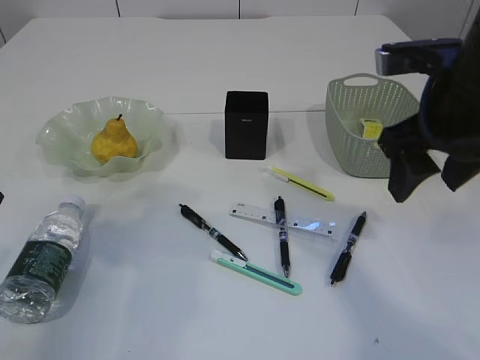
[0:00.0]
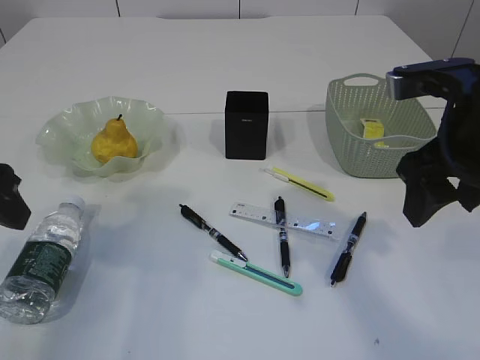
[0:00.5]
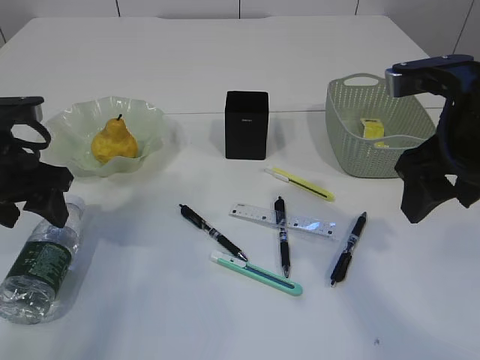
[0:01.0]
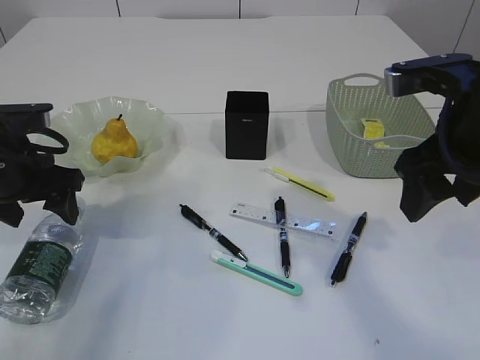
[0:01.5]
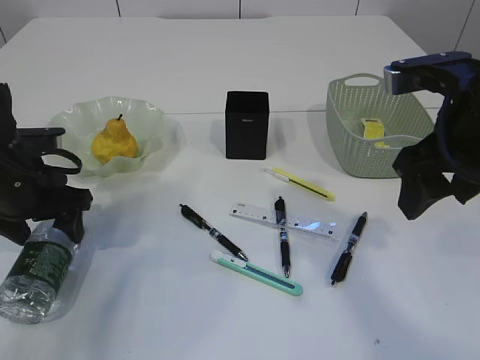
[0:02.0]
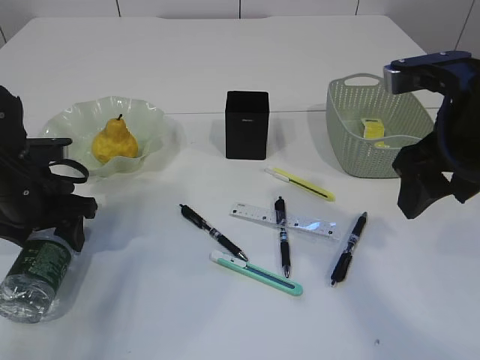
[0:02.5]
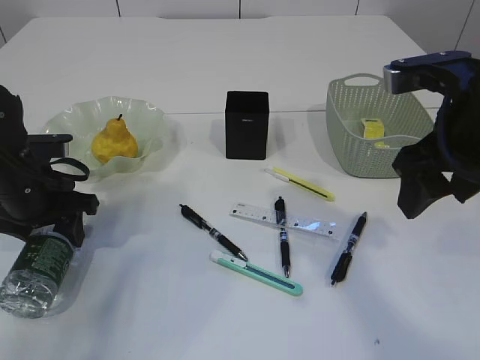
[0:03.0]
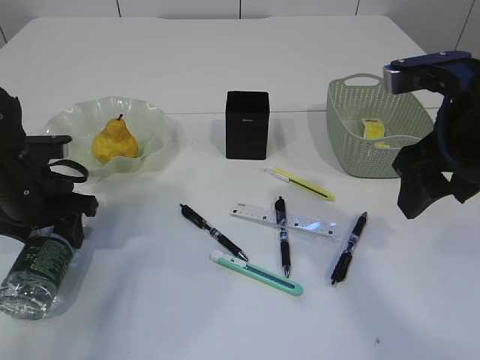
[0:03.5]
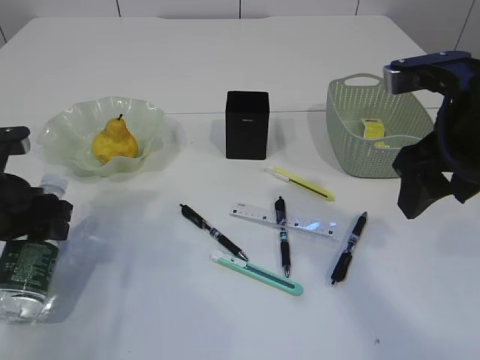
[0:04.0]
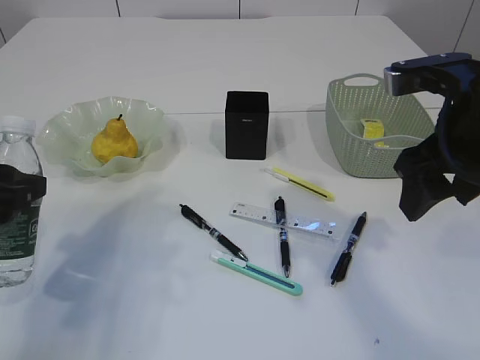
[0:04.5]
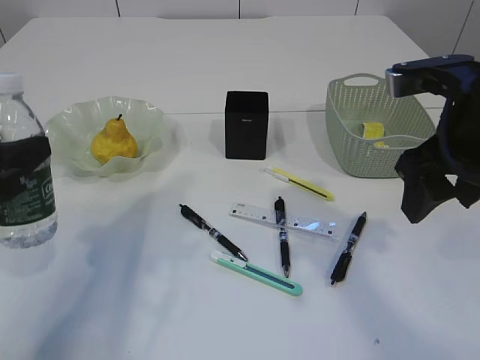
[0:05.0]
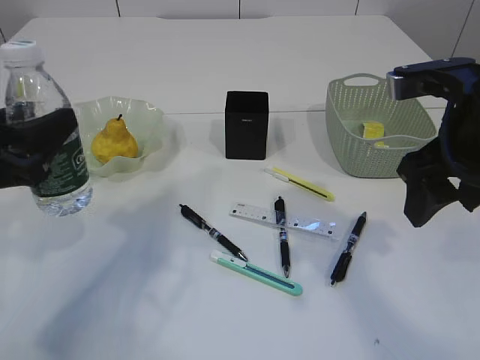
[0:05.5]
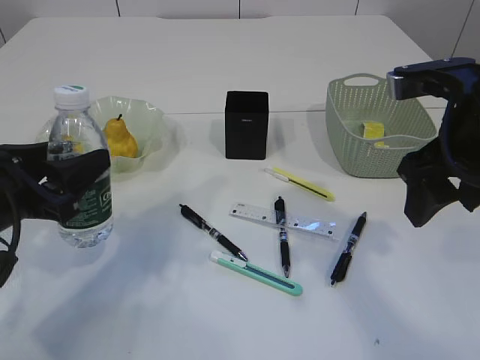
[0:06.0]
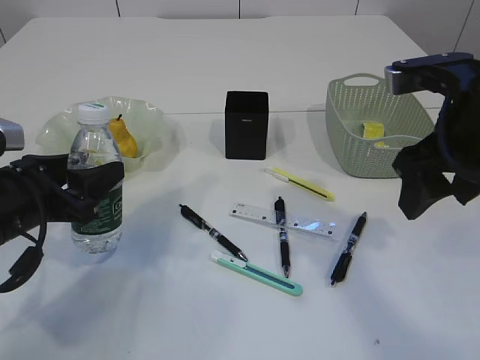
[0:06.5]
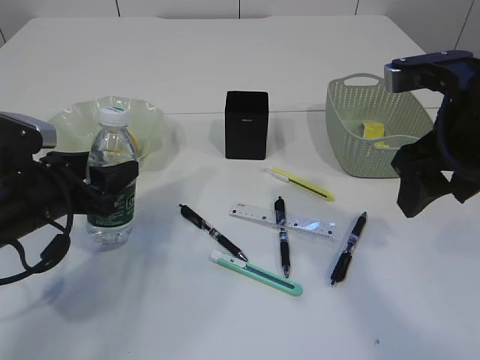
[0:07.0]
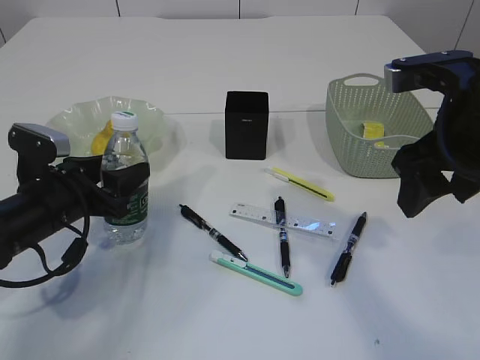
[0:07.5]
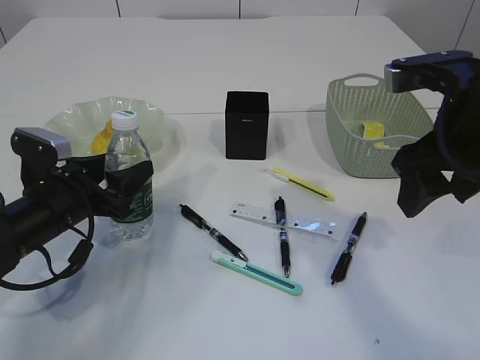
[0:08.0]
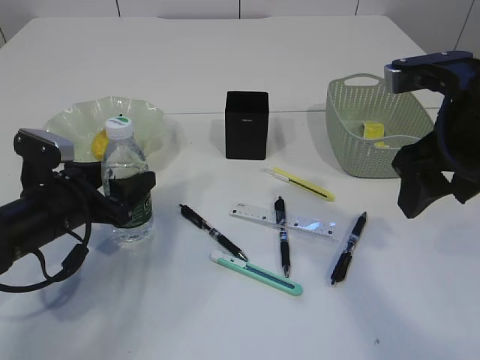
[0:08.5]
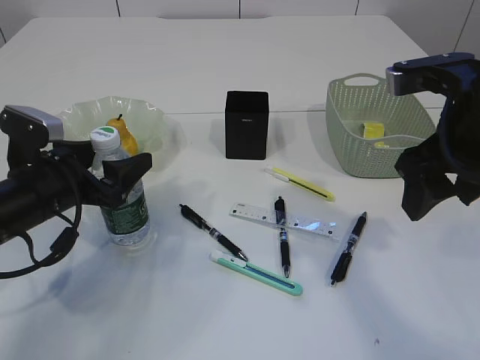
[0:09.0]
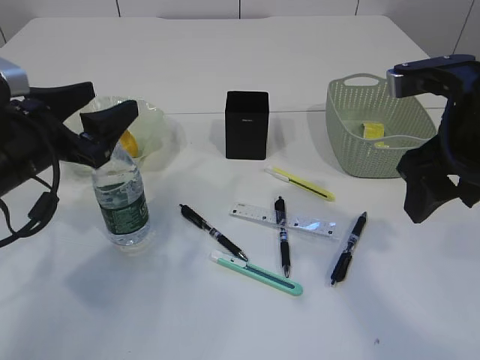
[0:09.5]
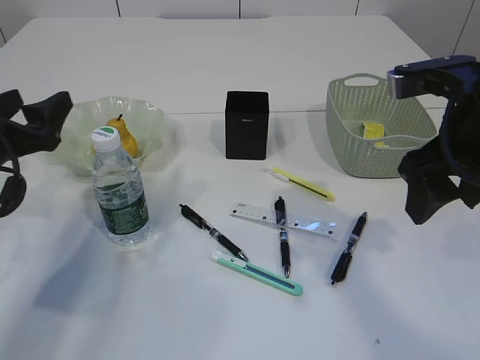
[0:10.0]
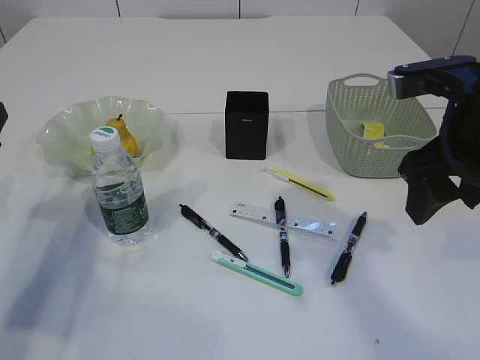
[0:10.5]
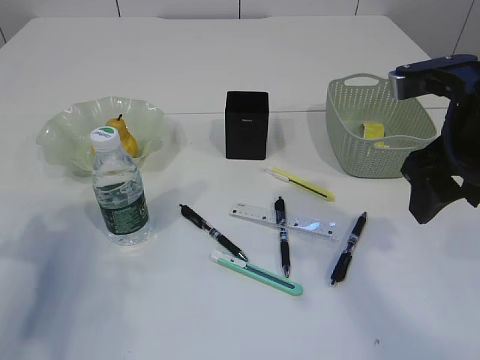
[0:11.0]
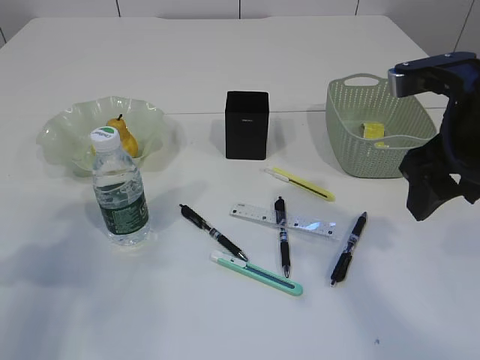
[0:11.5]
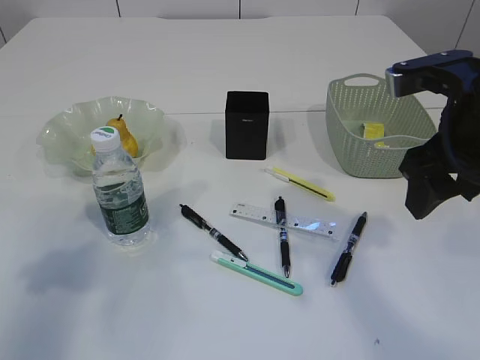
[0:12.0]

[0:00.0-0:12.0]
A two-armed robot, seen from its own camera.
Step, 0:00.5 to 0:04.0: Pick up the bottle with the left arm.
Step, 0:04.5 to 0:10.0: Place the bottle.
0:00.0 to 0:02.0: The left gripper goes about 15 cm downward and forward.
0:02.0 to 0:04.0: The left gripper is displaced backward by some 5 cm, and closes up.
0:06.0 to 0:08.0: The left gripper travels downward and forward by some 10 cm.
0:08.0 to 0:10.0: The left gripper heads upward and to the left, covering roughly 10 cm, and opens its fingers.
0:10.0 to 0:12.0: The left gripper heads upward and backward, covering roughly 15 cm.

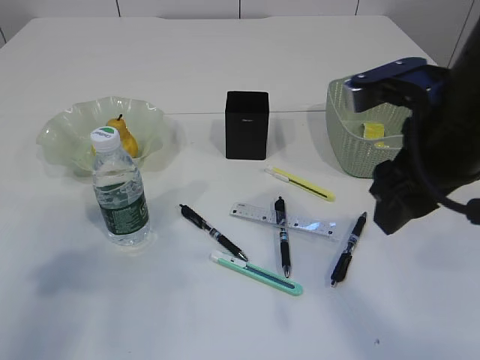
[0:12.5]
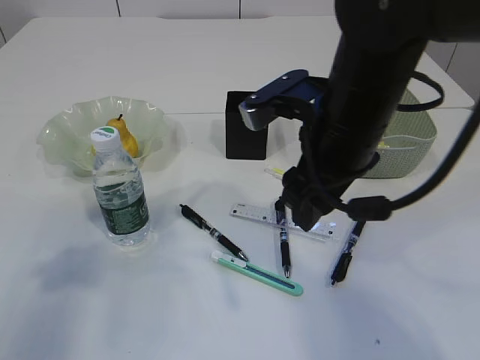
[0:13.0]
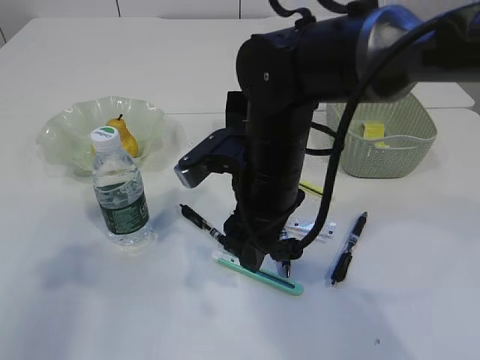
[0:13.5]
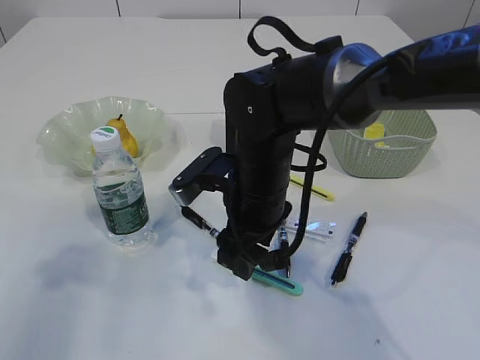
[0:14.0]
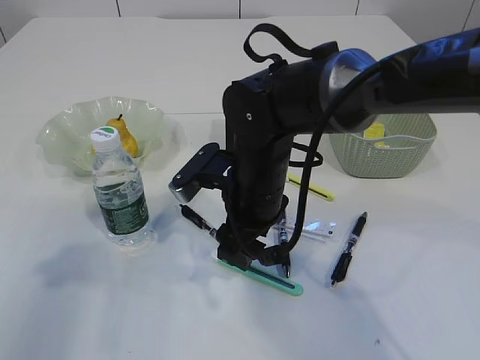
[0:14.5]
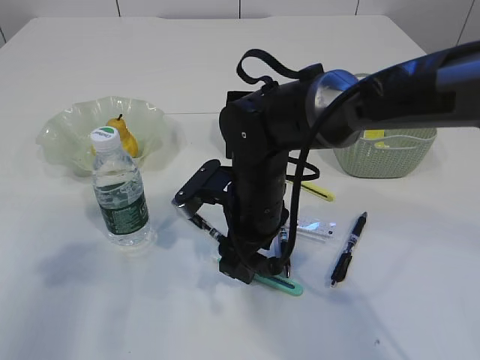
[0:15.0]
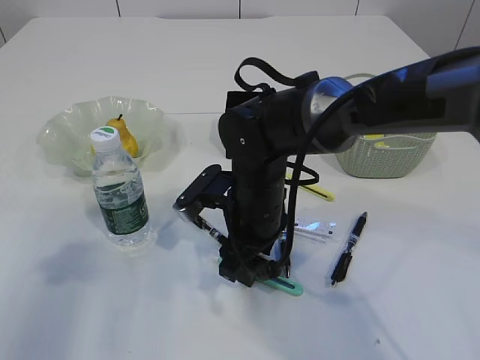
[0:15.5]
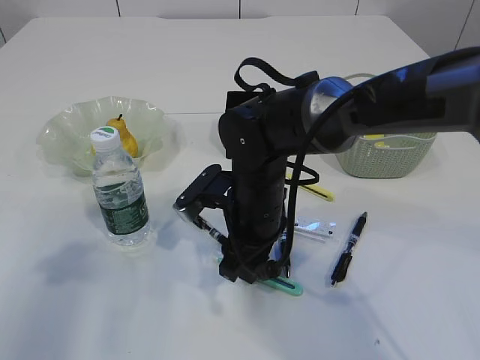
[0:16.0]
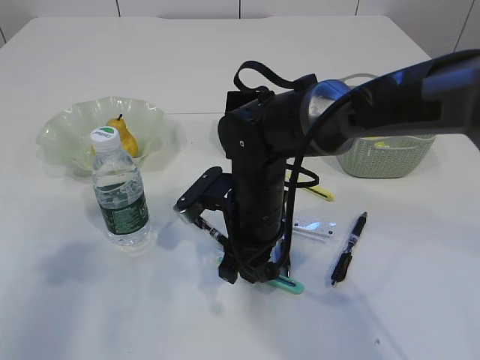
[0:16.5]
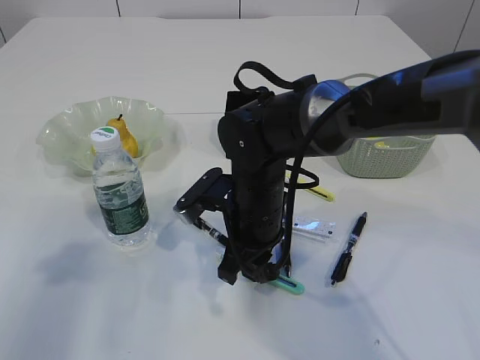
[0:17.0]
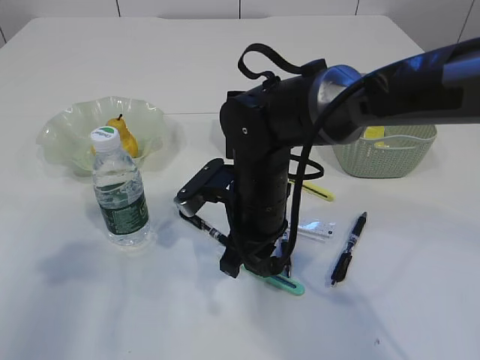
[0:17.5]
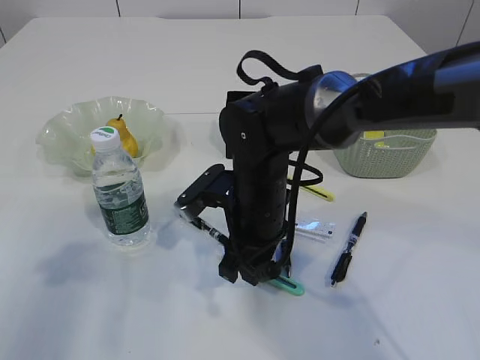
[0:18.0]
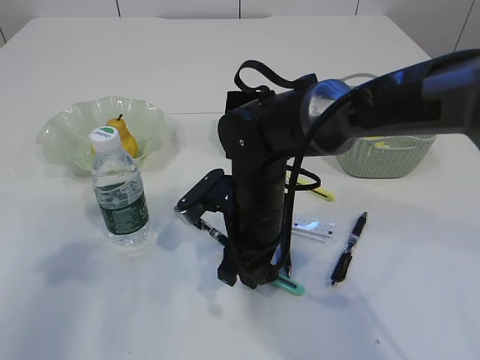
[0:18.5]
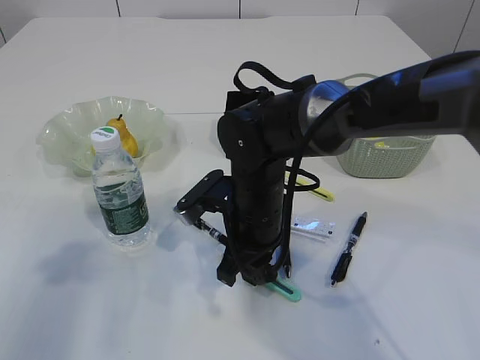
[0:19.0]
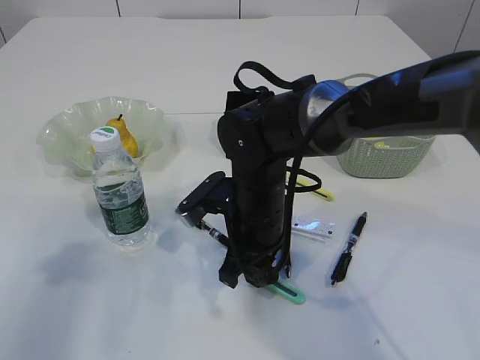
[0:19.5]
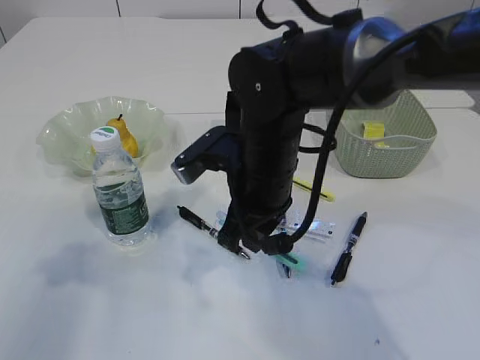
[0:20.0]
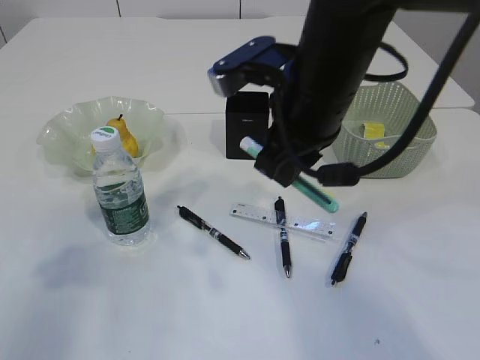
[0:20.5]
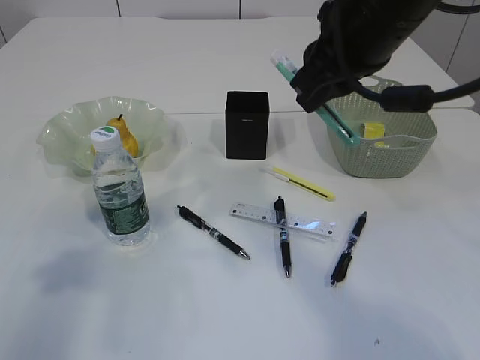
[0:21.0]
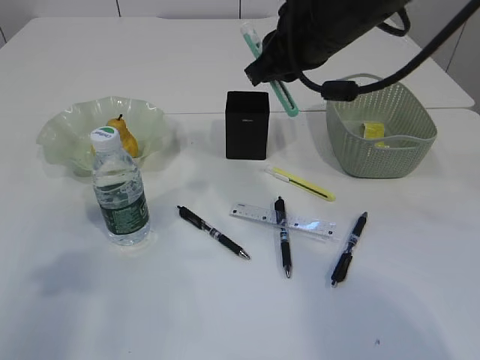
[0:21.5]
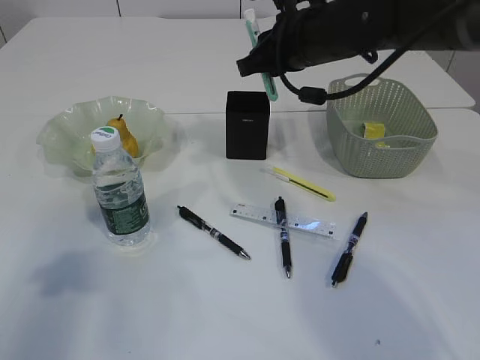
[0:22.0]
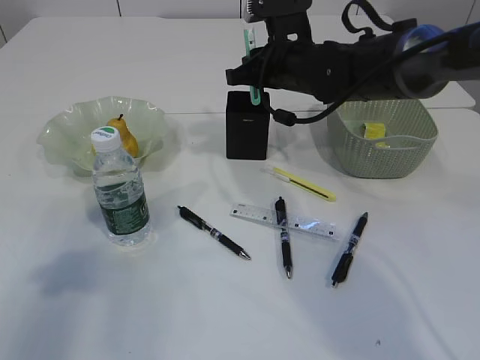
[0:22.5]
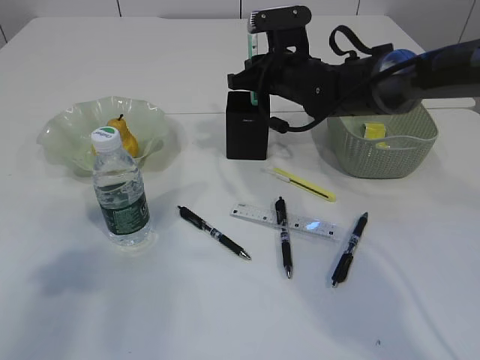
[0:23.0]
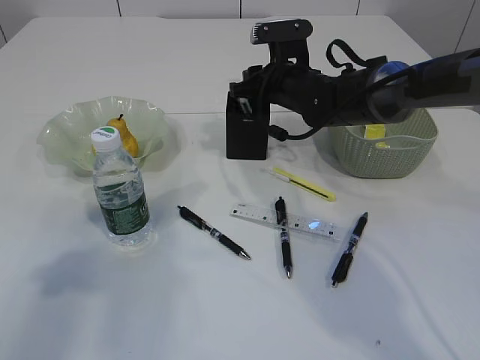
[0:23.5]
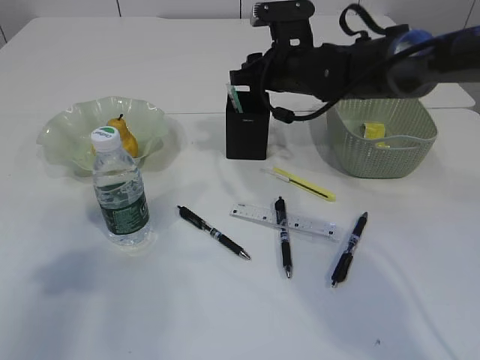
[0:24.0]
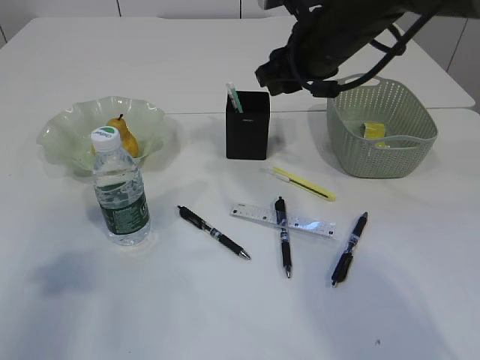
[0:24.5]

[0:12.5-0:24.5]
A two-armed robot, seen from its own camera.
Step, 0:12.5 to 0:20.0: pick up the blue knife.
0:12.5 to 0:14.5: The right gripper shifts about 20 cm to the left, downward and forward.
0:14.5 to 0:18.5: The grippers stay close to where they were, moving slightly.
0:18.5 to 0:20.5: The right gripper heads upward, covering some 15 cm.
0:20.5 to 0:22.5: The right gripper heads forward and downward, covering roughly 15 cm.
0:22.5 to 0:24.5: The right gripper travels upward by approximately 5 cm, and opens up.

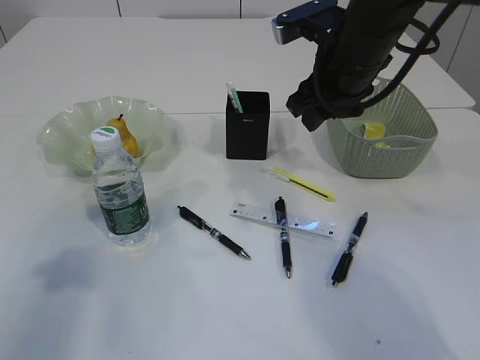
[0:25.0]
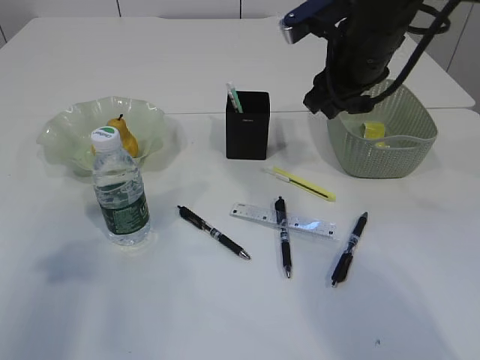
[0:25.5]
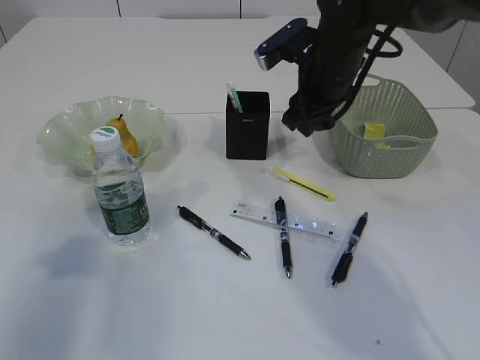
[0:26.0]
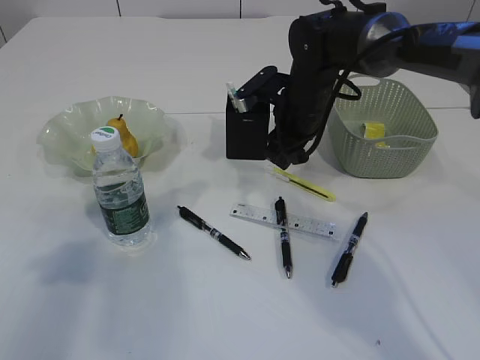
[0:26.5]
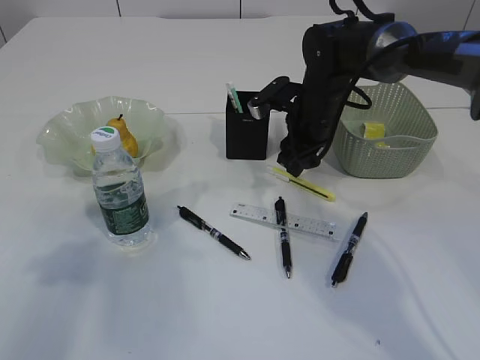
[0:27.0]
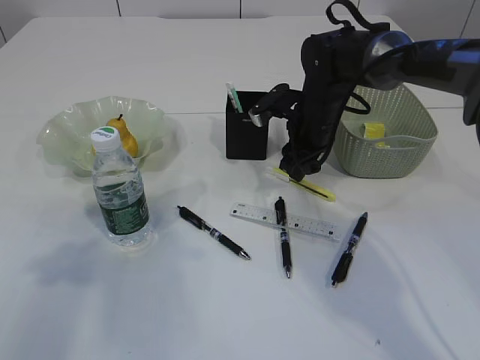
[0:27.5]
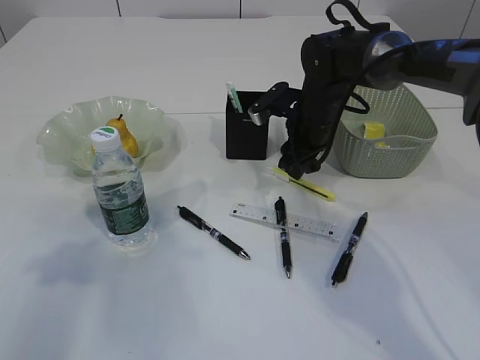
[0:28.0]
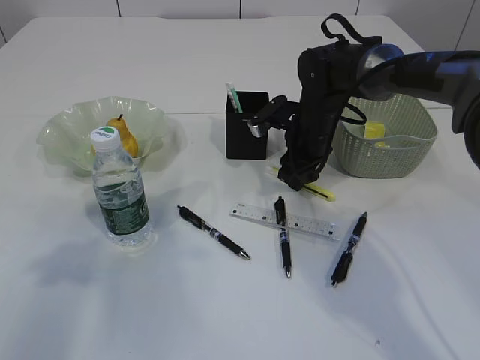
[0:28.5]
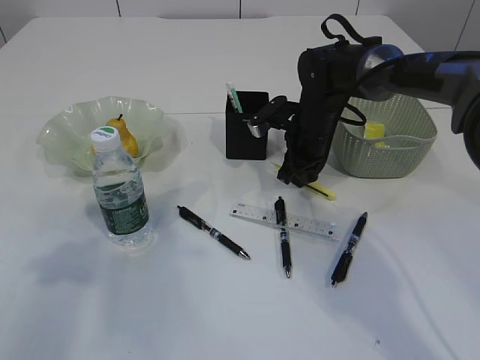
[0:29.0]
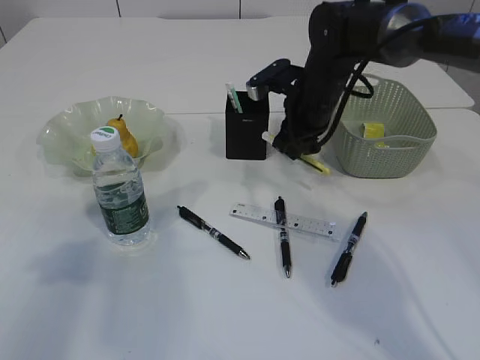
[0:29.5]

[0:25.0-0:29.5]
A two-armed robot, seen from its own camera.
Step, 0:25.5 to 0:29.0: pick up the yellow knife.
0:25.0 to 0:27.0: The right gripper moves downward and forward, about 15 cm.
0:27.0 to 0:29.5: The right gripper closes its fingers.
